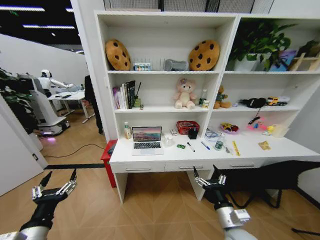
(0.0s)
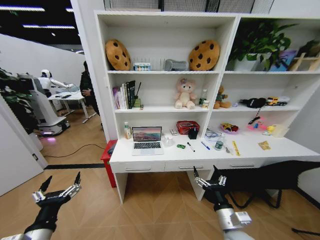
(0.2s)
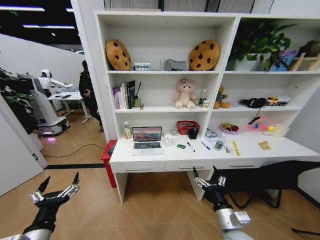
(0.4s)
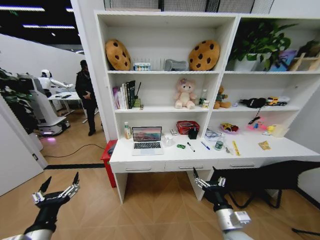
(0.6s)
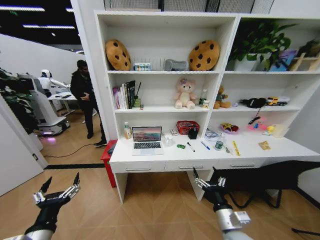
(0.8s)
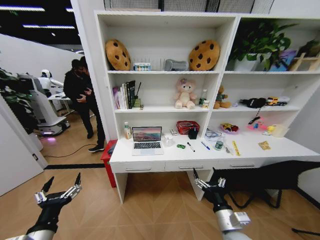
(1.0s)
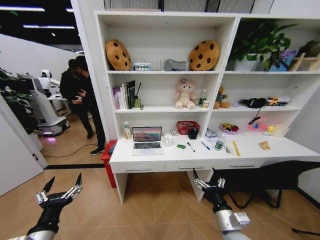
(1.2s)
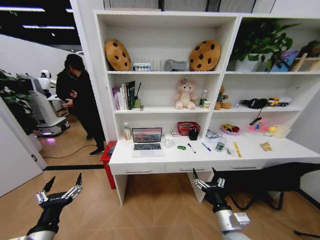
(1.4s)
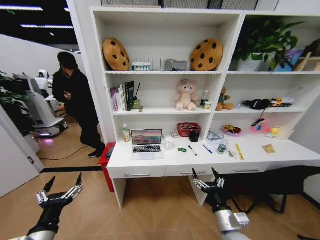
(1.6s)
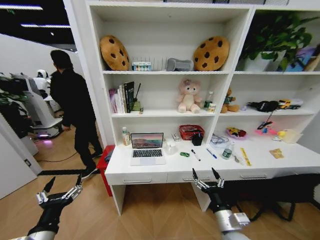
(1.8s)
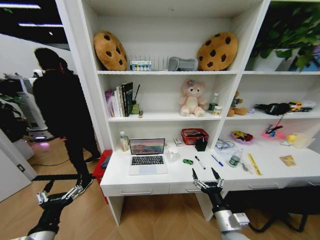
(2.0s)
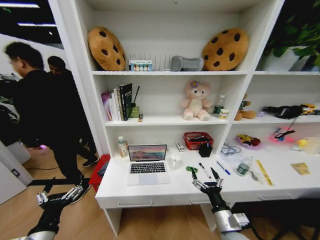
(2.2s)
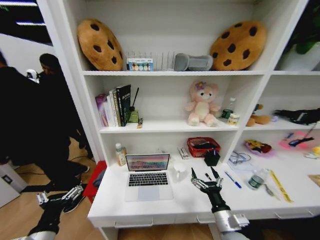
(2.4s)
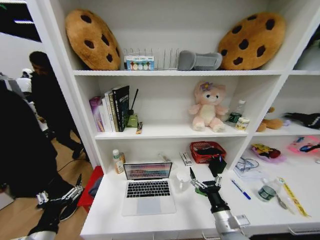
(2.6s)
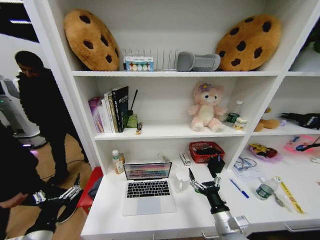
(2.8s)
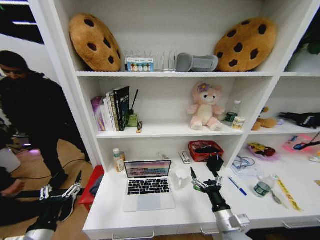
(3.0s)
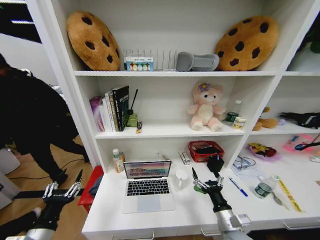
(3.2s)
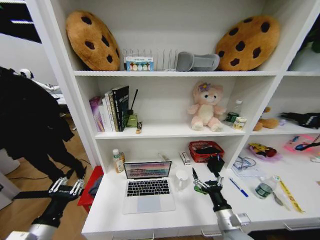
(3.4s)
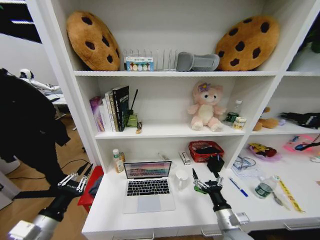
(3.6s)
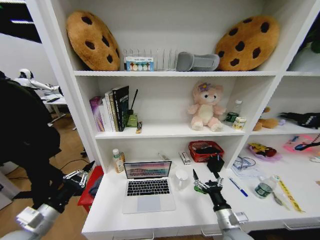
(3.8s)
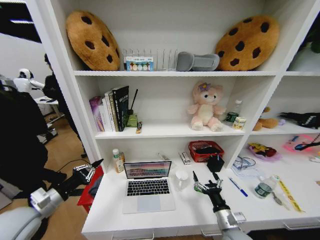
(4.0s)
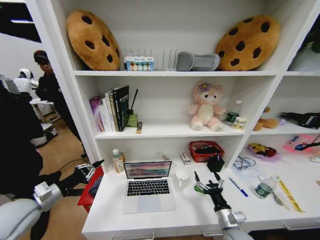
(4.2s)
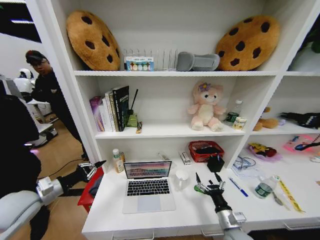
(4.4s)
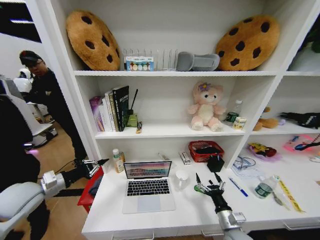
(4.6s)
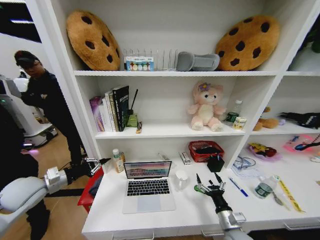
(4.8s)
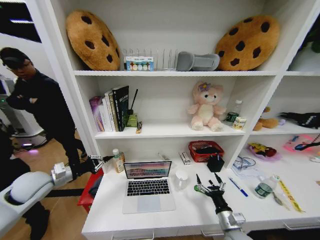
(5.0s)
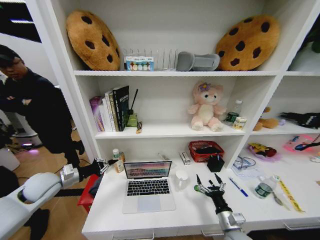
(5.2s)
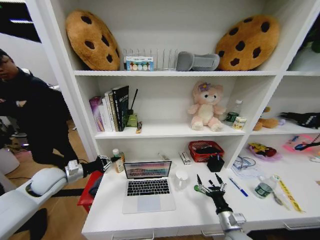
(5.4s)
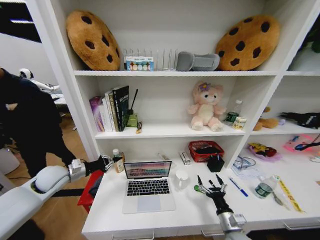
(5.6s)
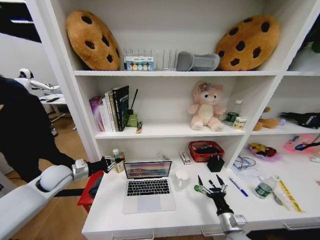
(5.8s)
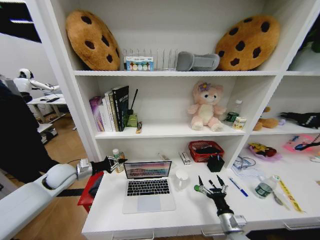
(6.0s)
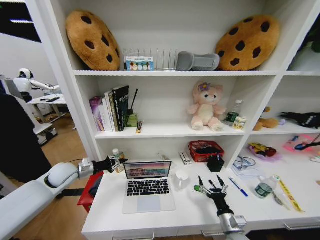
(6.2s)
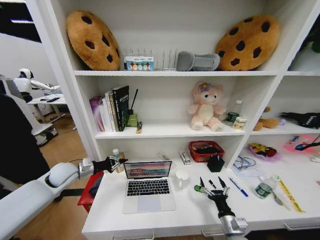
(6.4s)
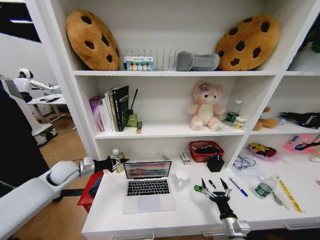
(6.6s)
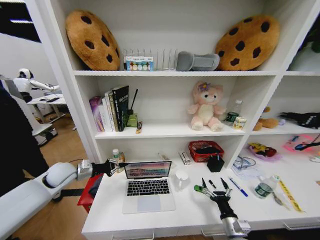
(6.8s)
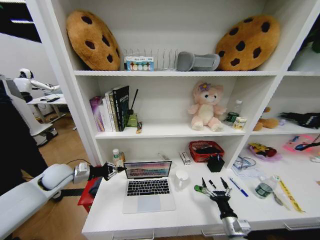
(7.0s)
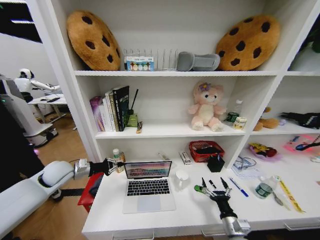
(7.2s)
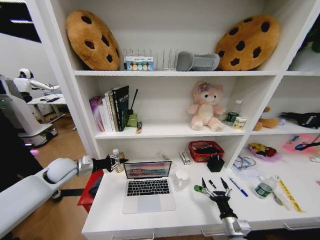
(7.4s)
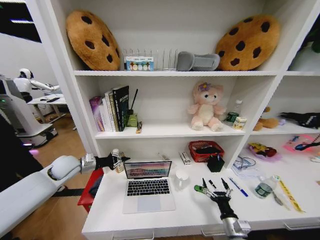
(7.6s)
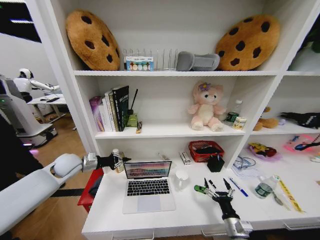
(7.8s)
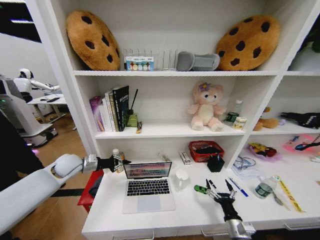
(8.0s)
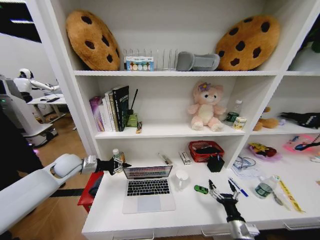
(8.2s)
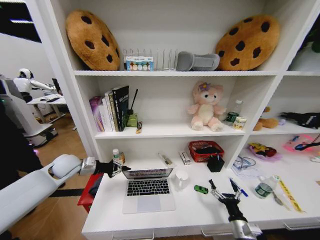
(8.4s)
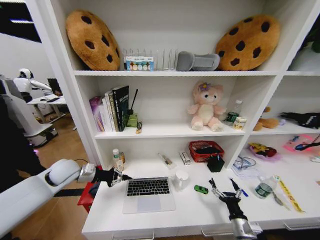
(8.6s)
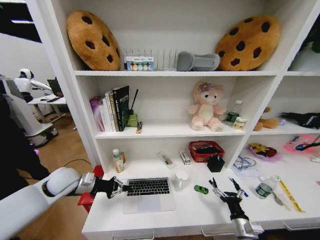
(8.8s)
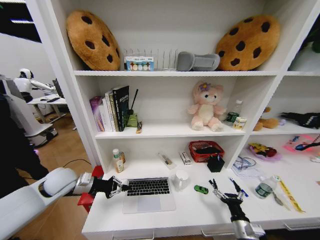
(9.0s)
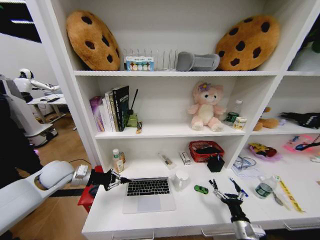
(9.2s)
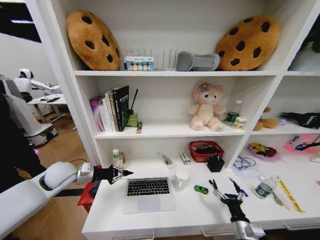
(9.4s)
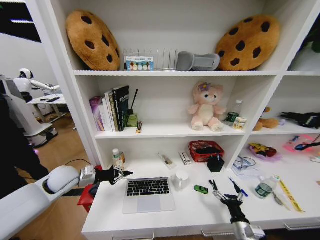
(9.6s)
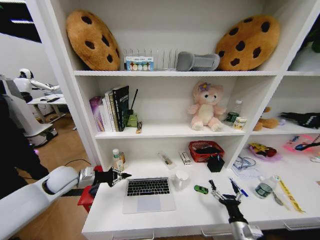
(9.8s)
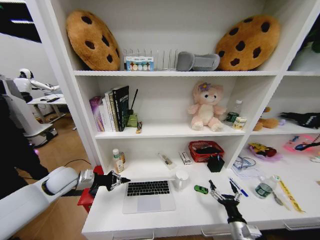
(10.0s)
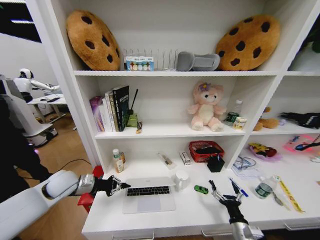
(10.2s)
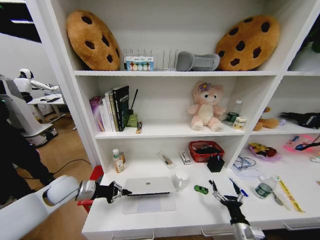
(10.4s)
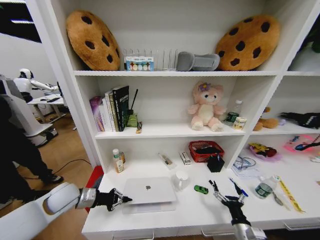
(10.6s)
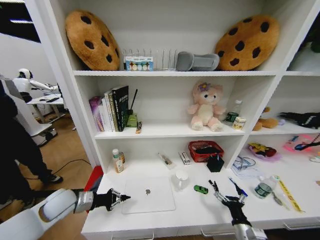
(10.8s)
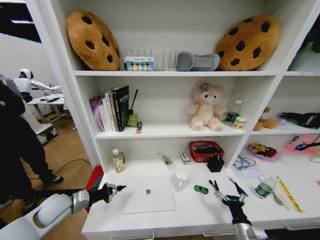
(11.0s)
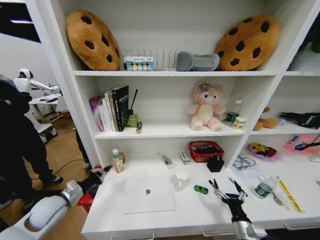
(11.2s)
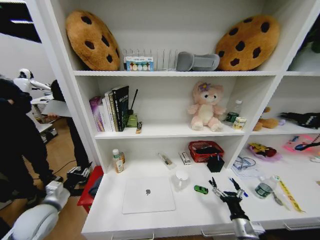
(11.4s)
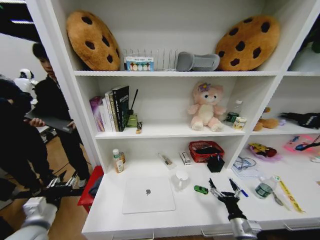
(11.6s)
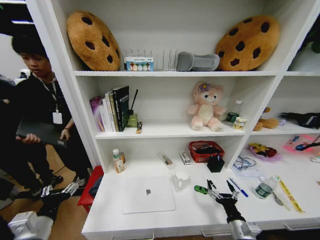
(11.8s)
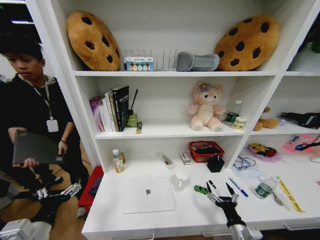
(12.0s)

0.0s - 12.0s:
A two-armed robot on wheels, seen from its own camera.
Task of the whole recording: Organize the objects on the table.
3.0s - 4.4s: The left gripper moves forward and to the left, roughly 20 cm, and closes; the right gripper is displaced downward by approximately 5 cm.
4.4s - 6.0s: The left gripper heads forward, covering roughly 10 cm.
6.0s - 7.6s: The grippers make only small movements.
7.6s - 9.0s: The left gripper travels backward by about 5 cm.
9.0s - 10.4s: The grippers move only a little.
10.4s - 12.0s: The left gripper goes about 20 cm backward, and opens up.

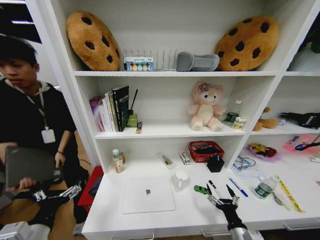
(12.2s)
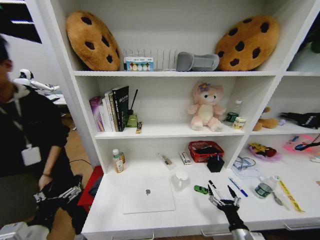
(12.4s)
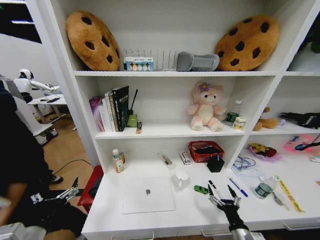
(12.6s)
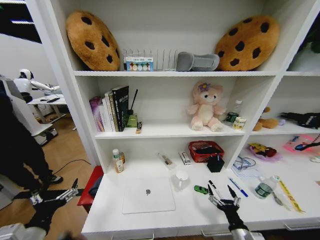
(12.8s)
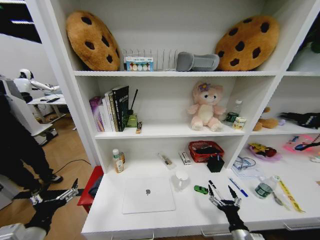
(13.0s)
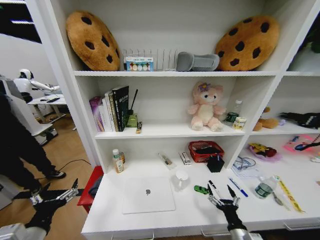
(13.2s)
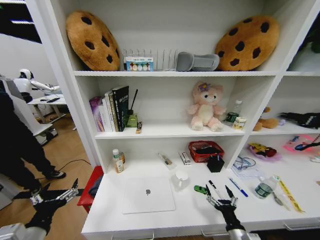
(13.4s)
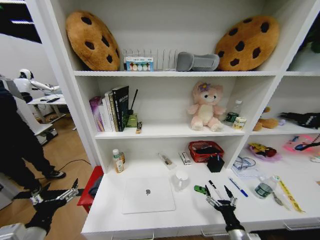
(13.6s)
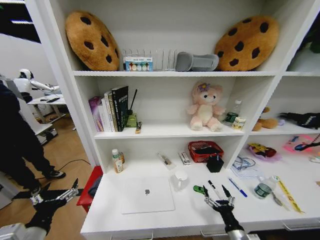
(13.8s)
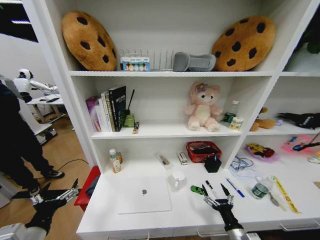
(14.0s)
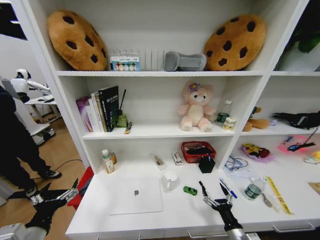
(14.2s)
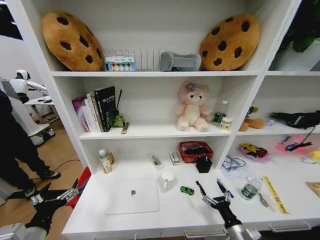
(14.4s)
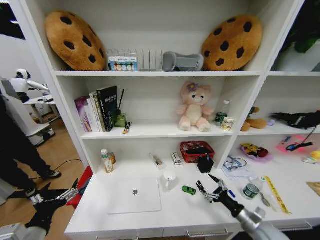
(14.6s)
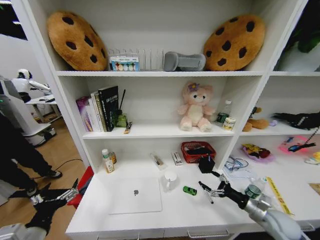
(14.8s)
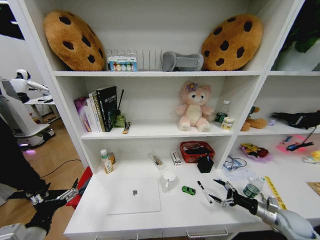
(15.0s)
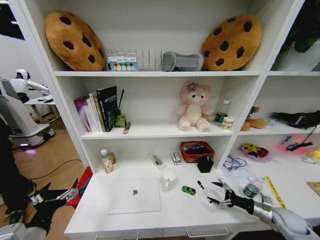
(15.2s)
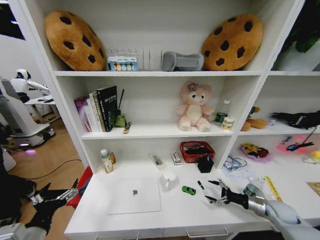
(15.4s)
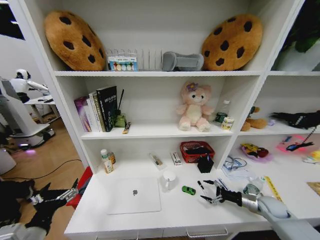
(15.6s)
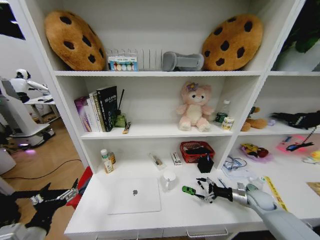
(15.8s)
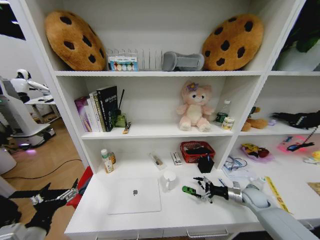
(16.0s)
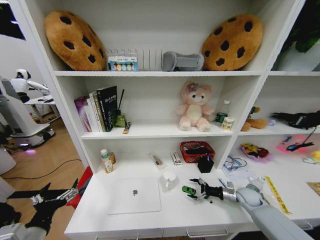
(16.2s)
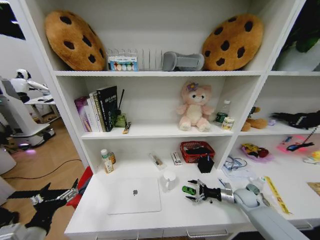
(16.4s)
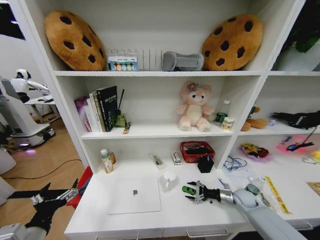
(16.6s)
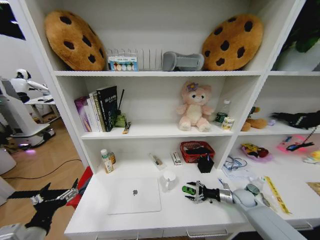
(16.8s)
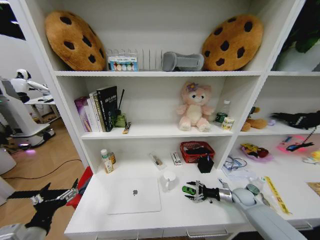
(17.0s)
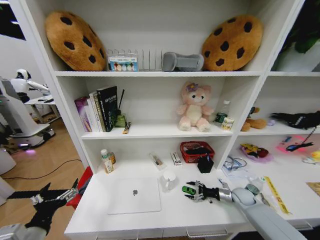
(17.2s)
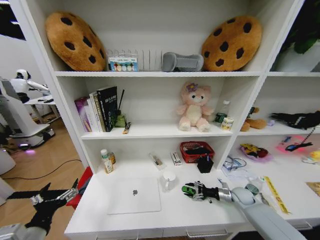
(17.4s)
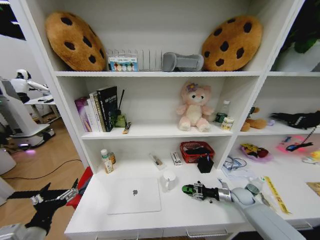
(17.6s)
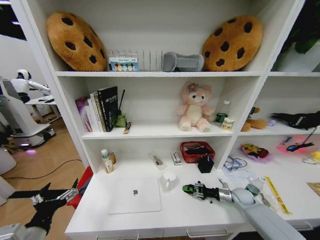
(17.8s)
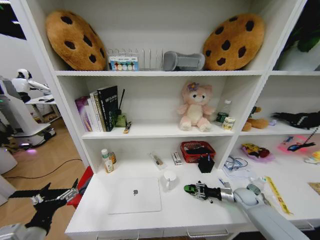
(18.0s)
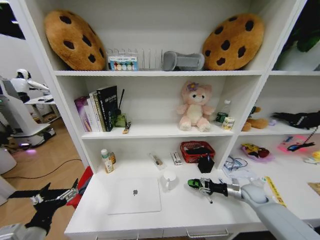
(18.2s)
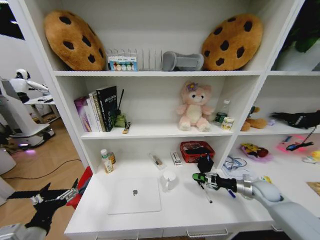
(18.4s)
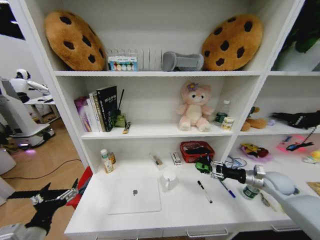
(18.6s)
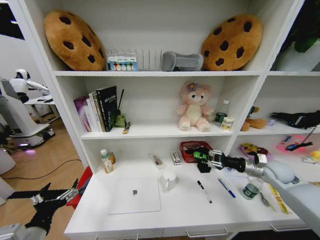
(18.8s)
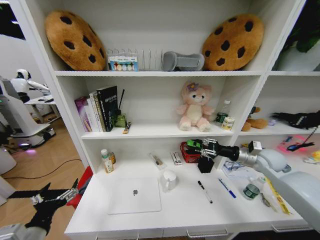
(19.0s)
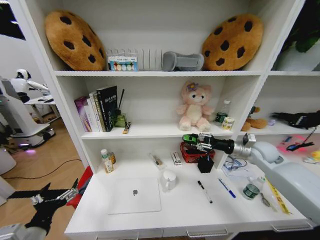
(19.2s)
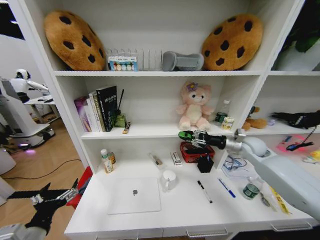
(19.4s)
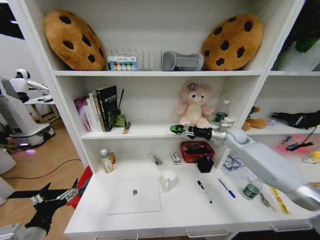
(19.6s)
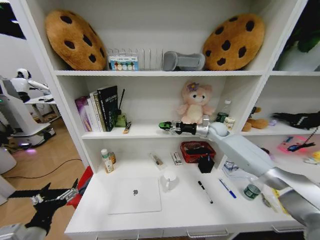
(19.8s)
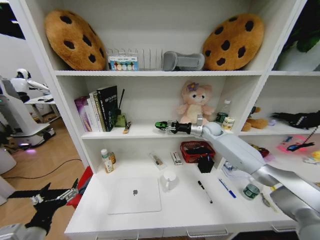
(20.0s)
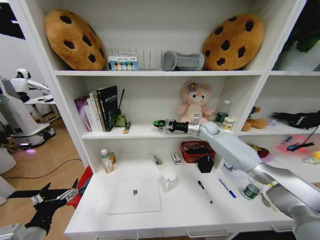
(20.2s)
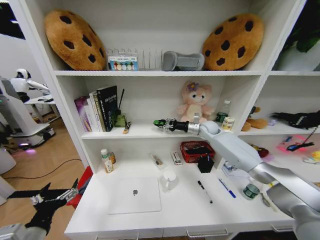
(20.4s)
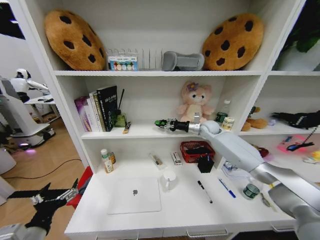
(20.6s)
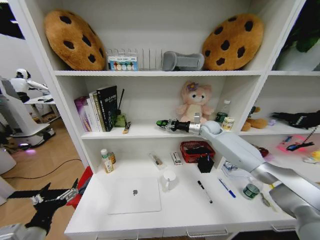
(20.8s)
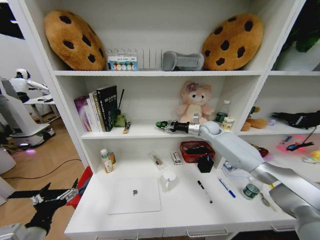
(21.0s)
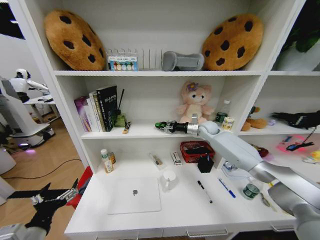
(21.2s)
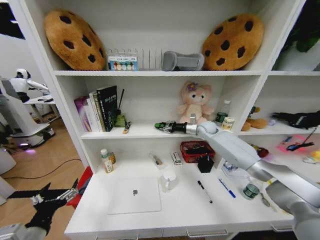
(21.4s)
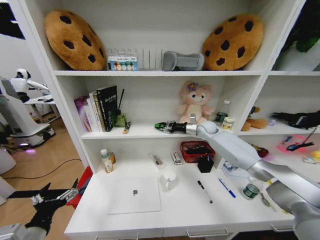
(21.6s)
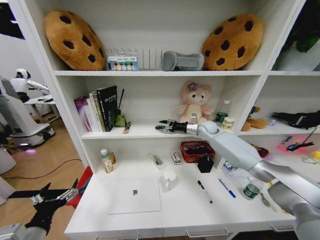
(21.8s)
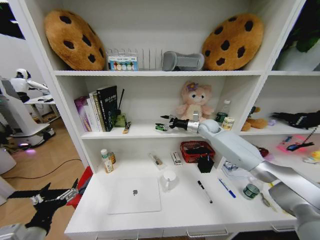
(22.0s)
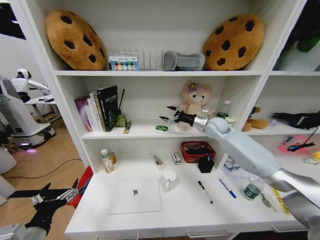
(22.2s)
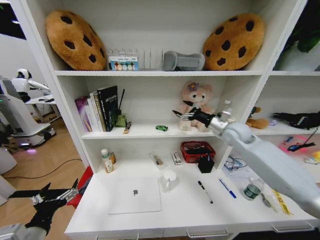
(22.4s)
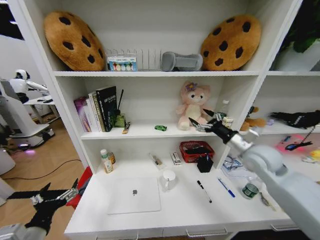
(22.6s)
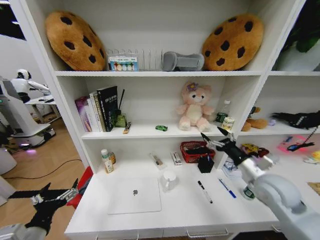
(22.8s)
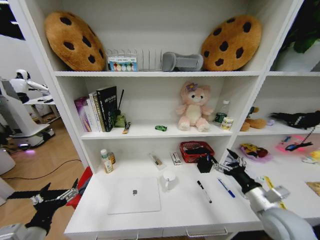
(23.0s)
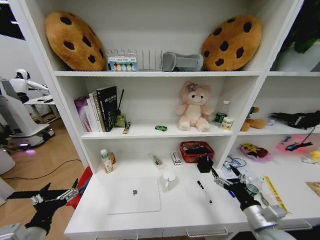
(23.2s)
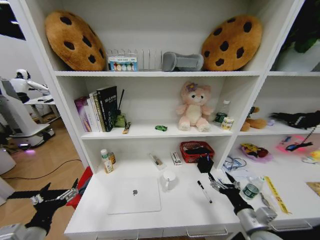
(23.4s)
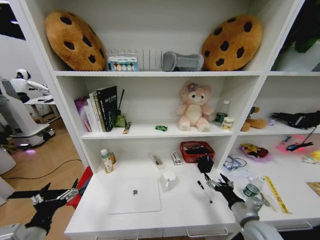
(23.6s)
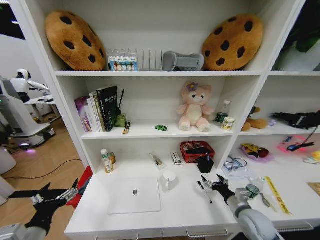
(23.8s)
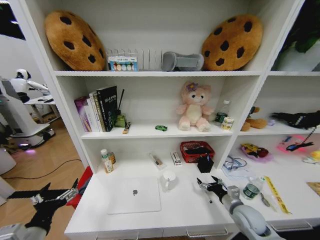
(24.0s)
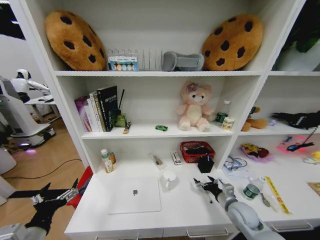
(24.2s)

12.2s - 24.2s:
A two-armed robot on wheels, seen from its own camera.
Task of the whole recording: Organize the objects on the table.
12.2s - 13.8s: The grippers move only a little.
13.8s - 15.2s: The right gripper travels to the right and forward by about 25 cm.
15.2s - 16.6s: The right gripper shifts roughly 15 cm forward and to the left.
16.6s - 18.2s: The right gripper moves some 5 cm, and closes up.
18.2s - 19.8s: The right gripper goes approximately 35 cm upward, forward and to the left.
19.8s - 21.2s: The grippers make only small movements.
21.2s - 22.6s: The right gripper shifts approximately 25 cm backward, and opens its fingers.
22.6s - 24.2s: The right gripper moves downward, approximately 25 cm.
